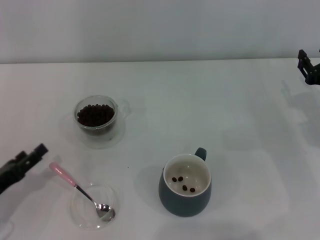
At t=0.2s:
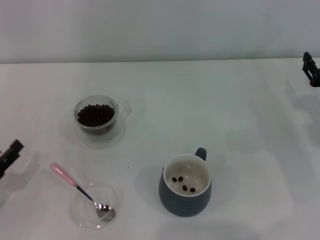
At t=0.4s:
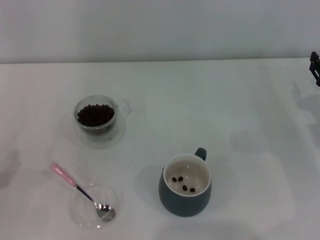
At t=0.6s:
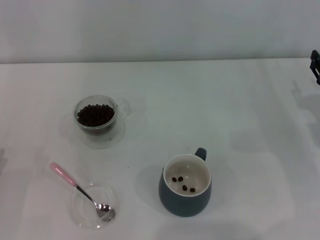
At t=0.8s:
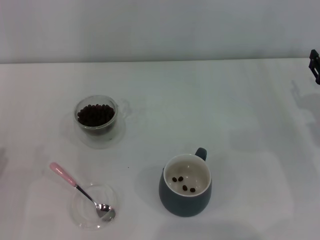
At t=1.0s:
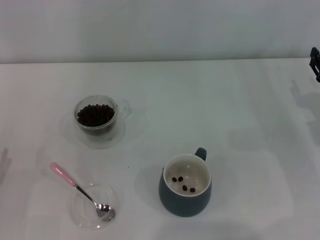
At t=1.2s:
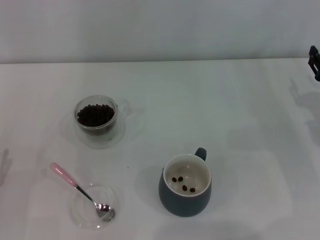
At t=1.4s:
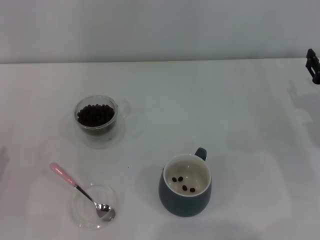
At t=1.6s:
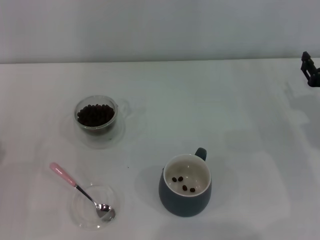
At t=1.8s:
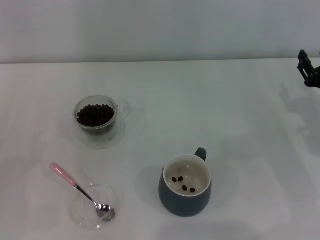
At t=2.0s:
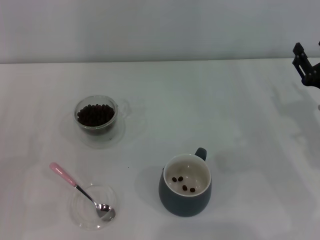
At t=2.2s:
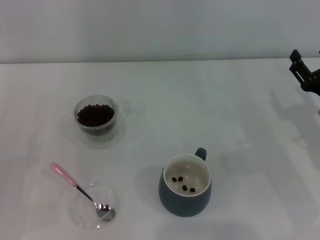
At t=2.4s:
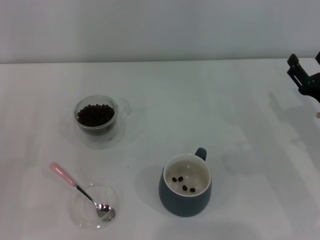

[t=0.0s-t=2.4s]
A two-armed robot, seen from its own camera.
Task of the whole recording: Use a pink spoon to take out the coffee beans from the glass and pour them into the gray cup.
t=1.2s to t=2.4s: The right gripper shifts by about 5 cm.
